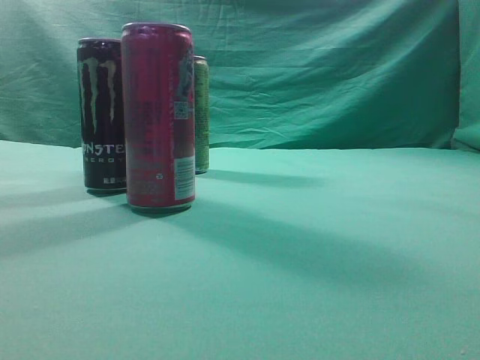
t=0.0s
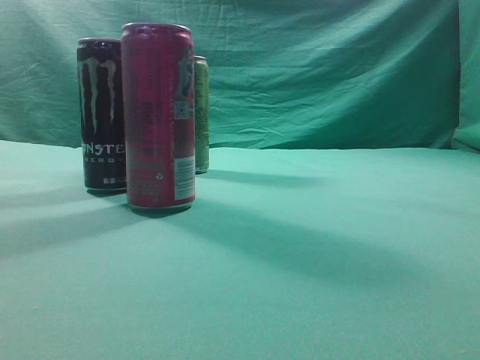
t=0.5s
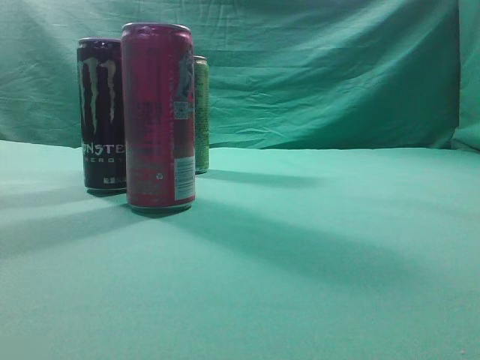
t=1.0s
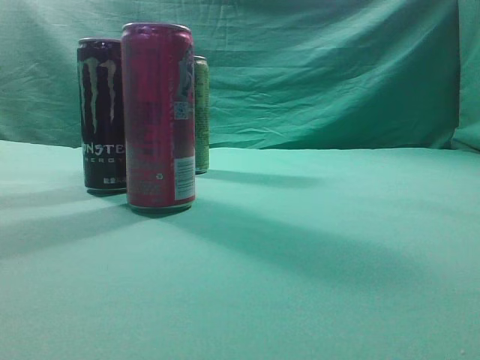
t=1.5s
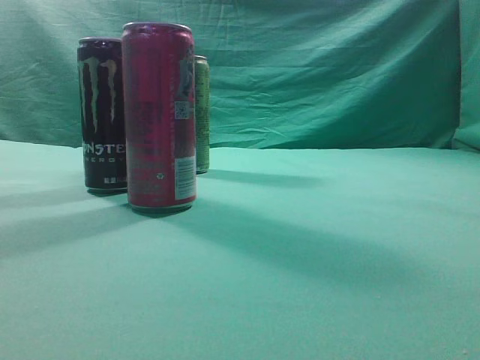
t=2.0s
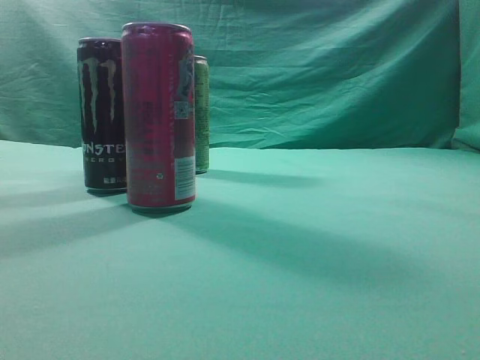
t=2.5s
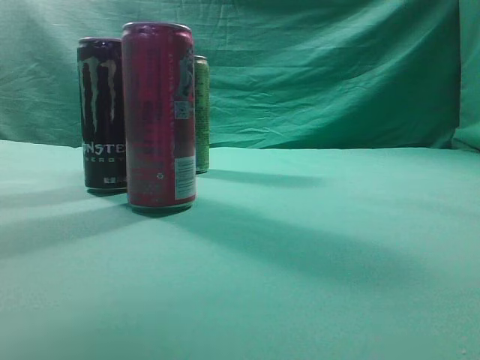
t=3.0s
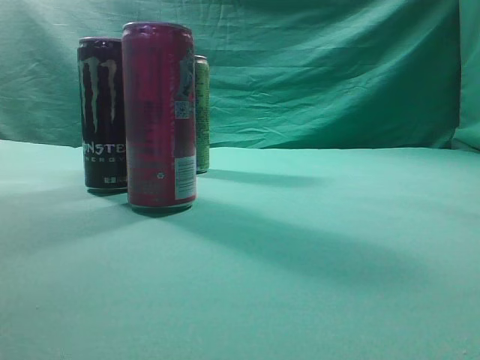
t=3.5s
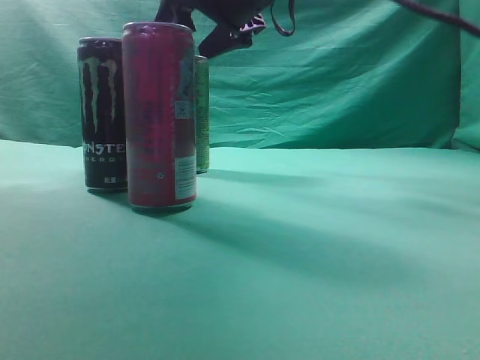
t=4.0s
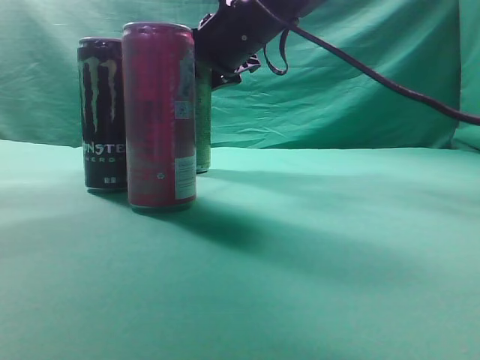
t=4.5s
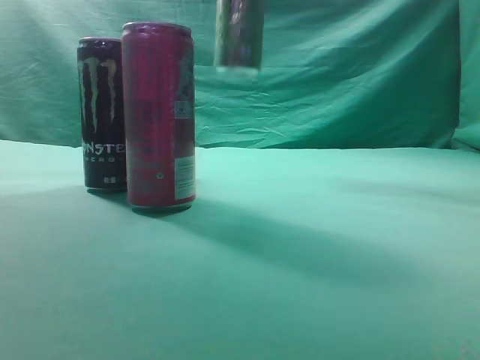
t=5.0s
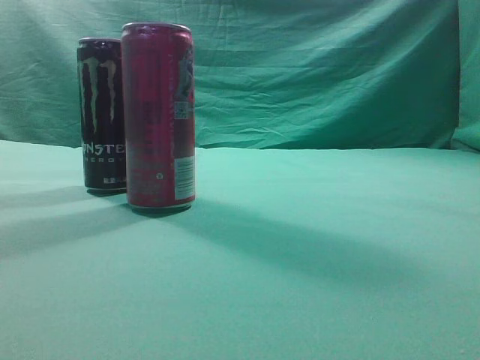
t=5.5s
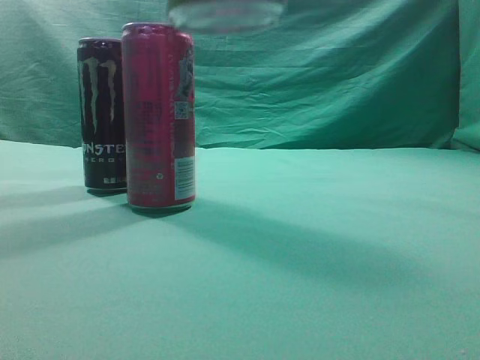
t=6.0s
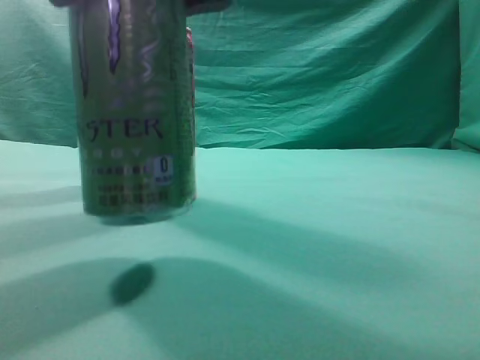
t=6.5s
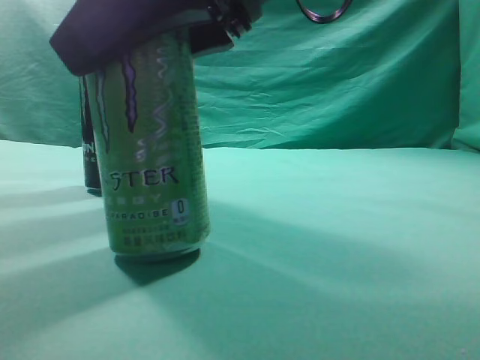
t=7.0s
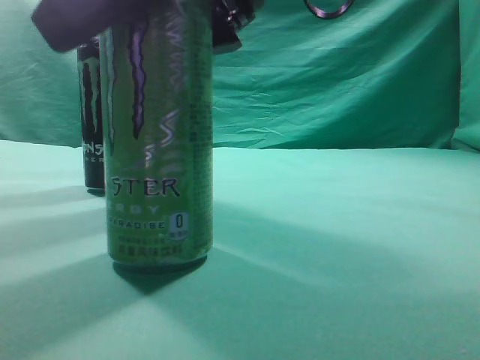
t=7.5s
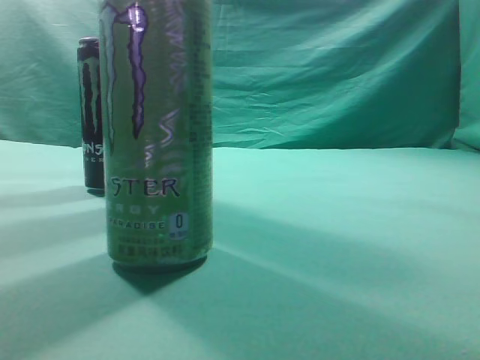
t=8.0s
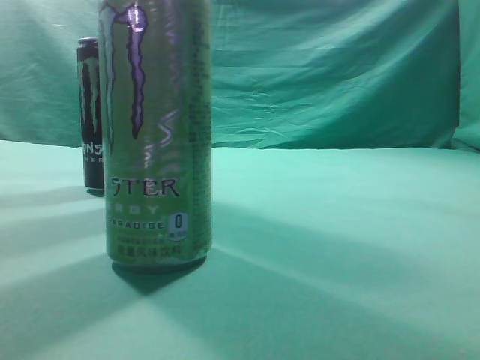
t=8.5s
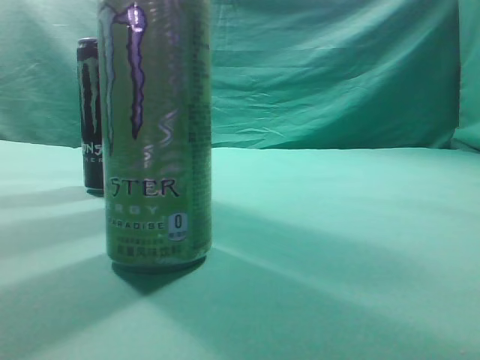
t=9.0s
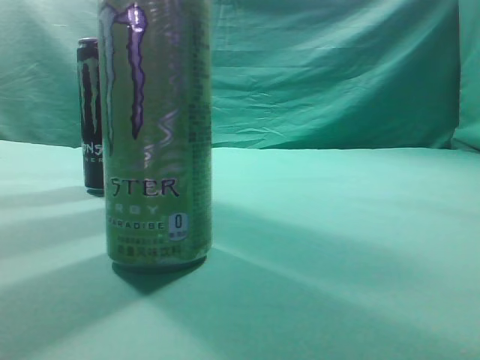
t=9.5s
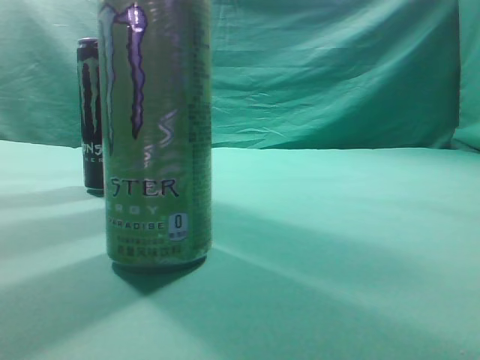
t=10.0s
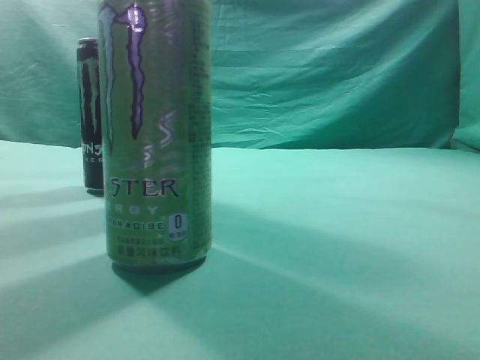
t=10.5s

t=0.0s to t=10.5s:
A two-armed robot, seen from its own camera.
Task of the whole recording: move one drink among three beverages.
Step, t=0.0s to t=5.0s: Grasp the beverage bottle placed at the back of the desk.
Step, t=5.5s to t=7.5s: Place the beverage bottle to the front of the table.
t=2.0s to t=4.0s: The right gripper travels forward and to the left by approximately 50 cm, and opens.
t=4.0s to t=6.5s: The right gripper goes approximately 25 cm backward.
t=6.5s to t=8.5s: The right gripper heads to the right, upward and backward, covering approximately 25 cm, and closes its fingers.
